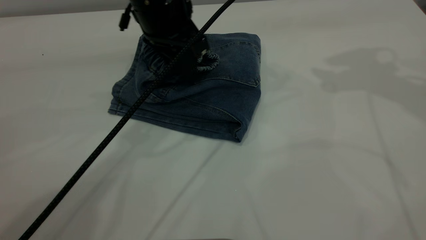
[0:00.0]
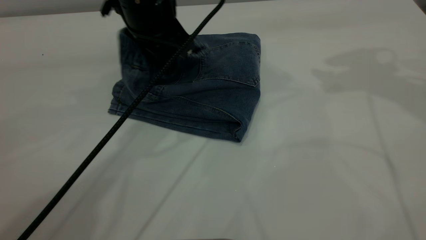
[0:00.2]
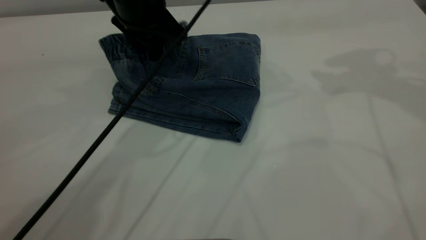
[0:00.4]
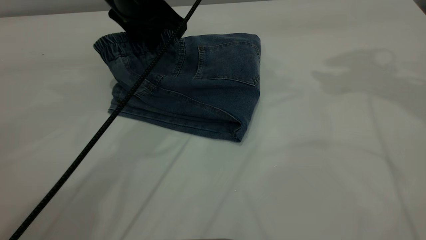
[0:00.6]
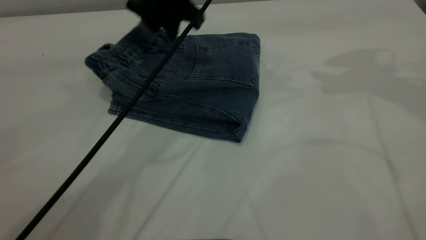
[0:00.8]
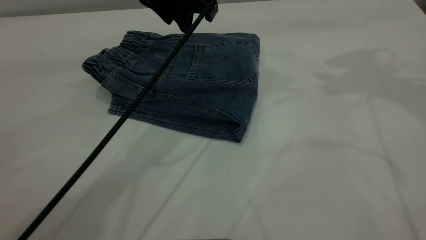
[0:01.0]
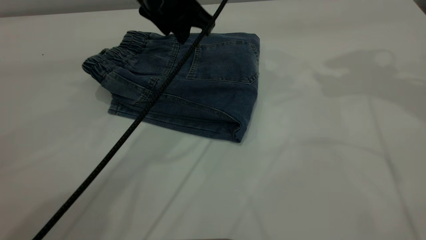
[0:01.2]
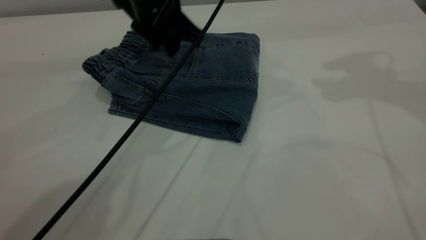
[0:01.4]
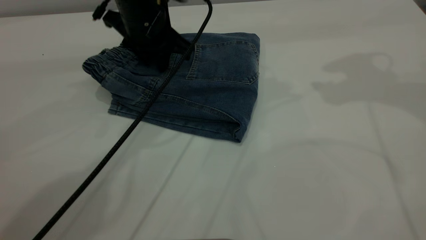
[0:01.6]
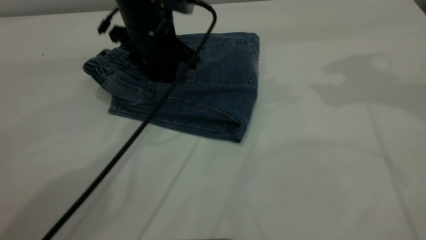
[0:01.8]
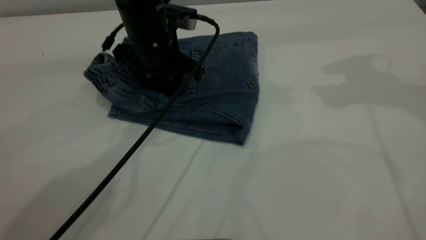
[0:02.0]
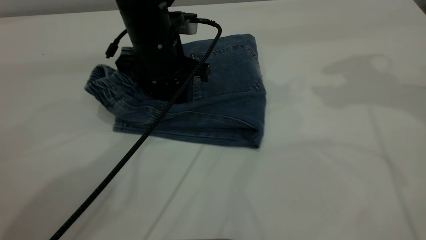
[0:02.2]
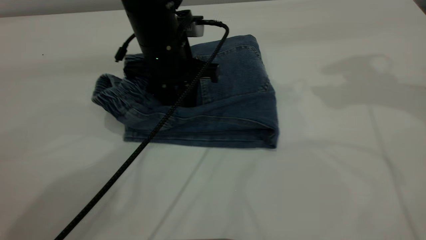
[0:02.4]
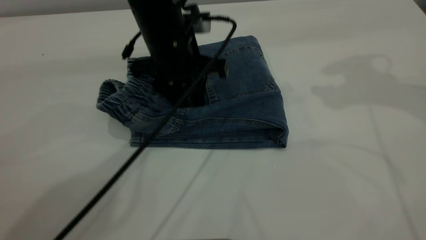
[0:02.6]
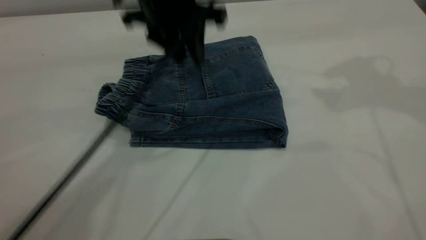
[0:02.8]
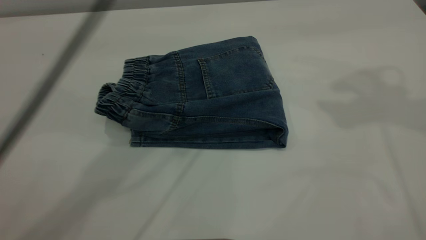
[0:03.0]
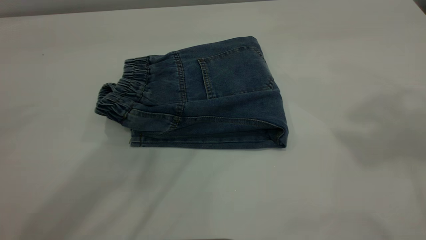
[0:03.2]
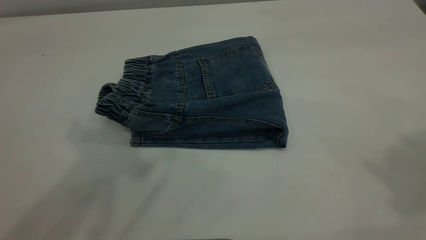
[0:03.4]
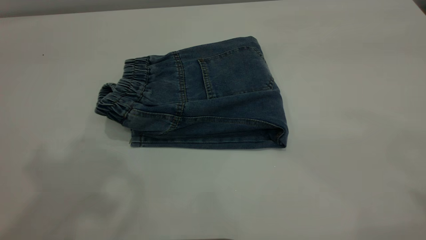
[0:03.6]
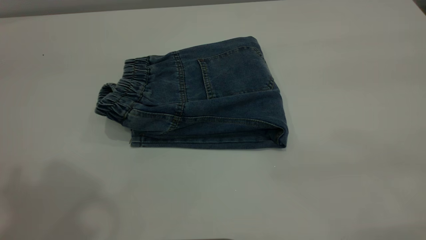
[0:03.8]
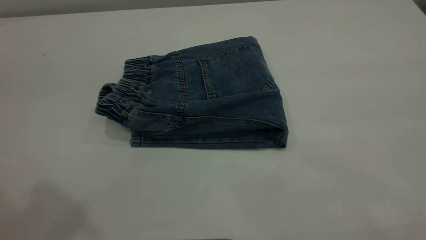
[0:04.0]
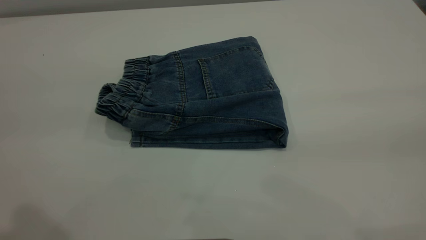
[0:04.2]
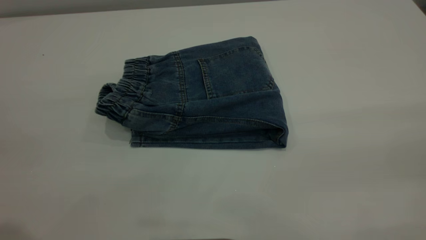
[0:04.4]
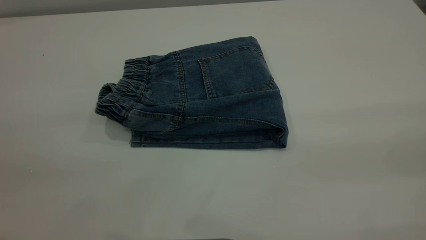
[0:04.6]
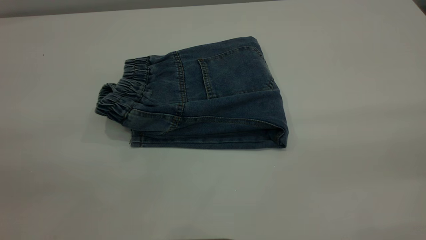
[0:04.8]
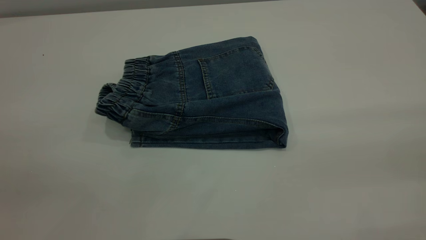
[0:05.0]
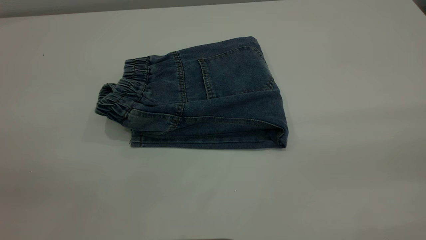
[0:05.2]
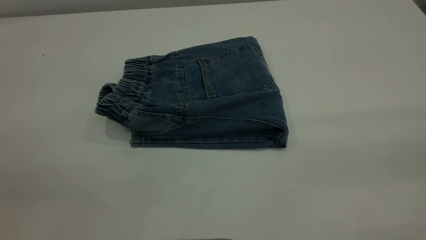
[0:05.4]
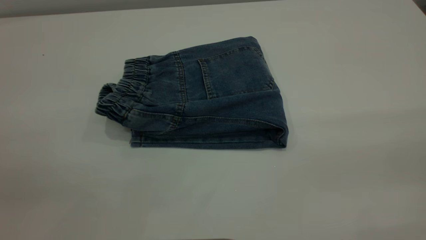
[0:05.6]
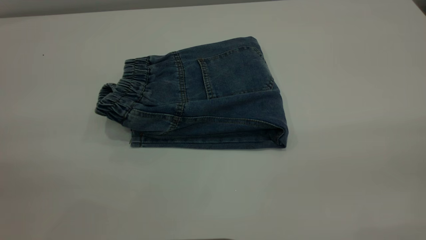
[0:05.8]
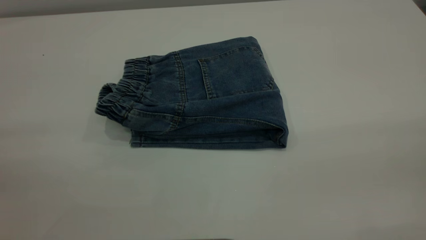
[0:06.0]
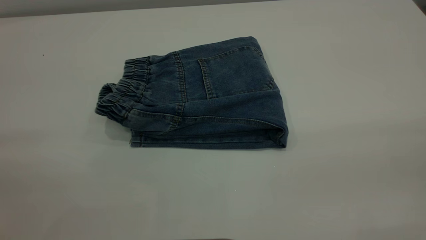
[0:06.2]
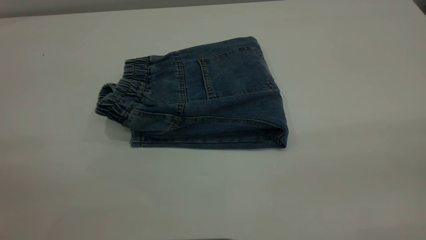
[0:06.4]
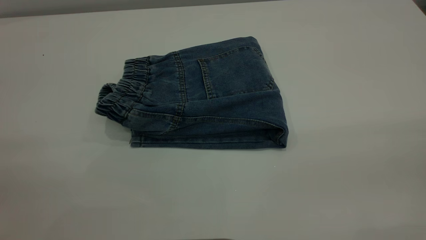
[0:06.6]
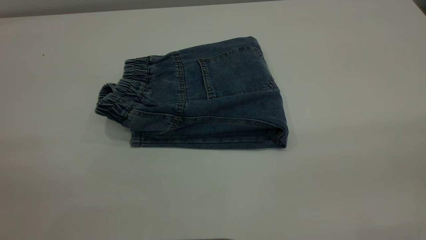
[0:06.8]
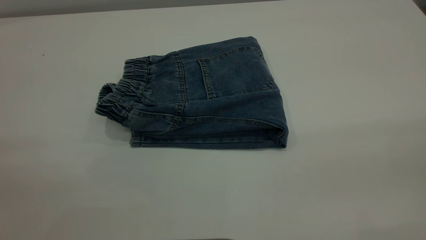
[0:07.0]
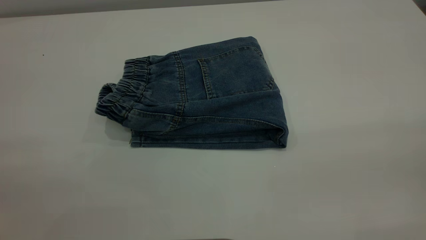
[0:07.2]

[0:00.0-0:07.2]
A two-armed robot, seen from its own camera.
0:01.4 to 0:02.8: The left gripper goes approximately 10 cm upward.
0:02.8 to 0:04.4: The left gripper moves backward and to the left, approximately 35 cm, and opens. The right gripper heads backward, covering approximately 35 cm.

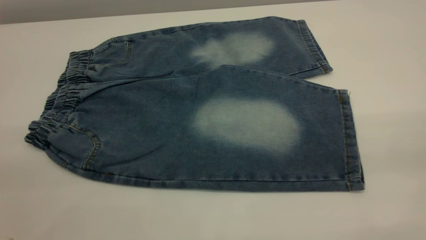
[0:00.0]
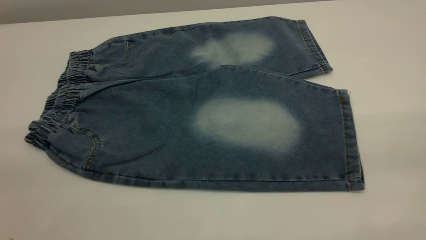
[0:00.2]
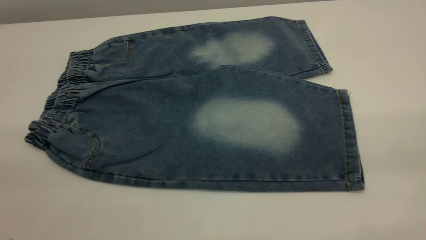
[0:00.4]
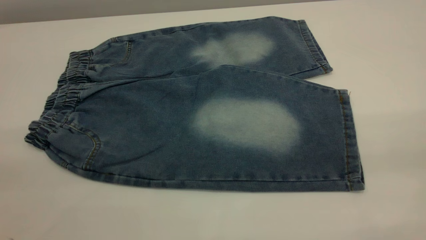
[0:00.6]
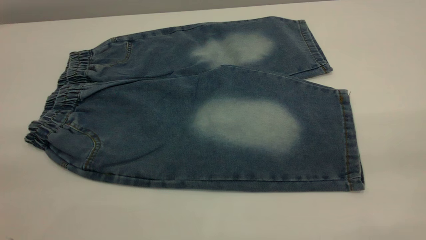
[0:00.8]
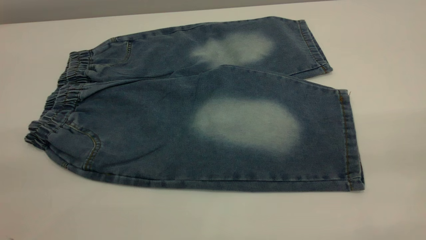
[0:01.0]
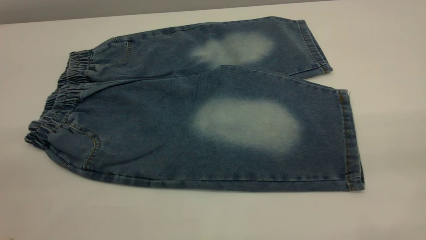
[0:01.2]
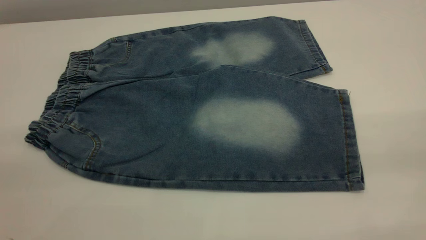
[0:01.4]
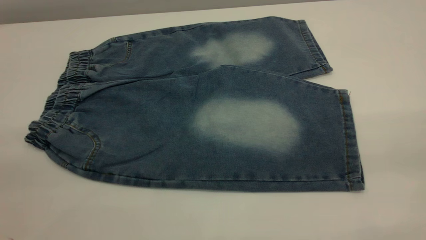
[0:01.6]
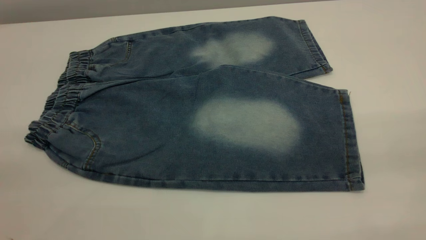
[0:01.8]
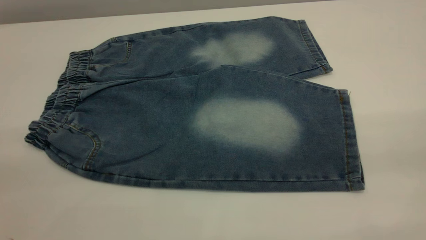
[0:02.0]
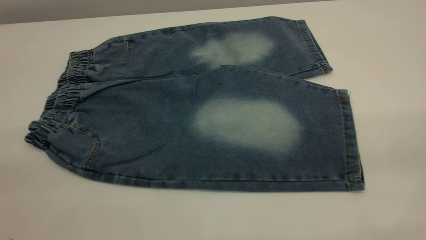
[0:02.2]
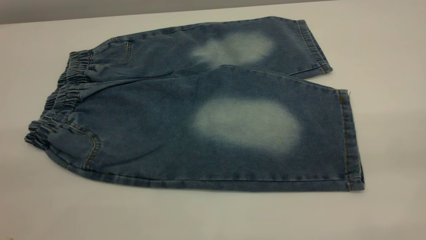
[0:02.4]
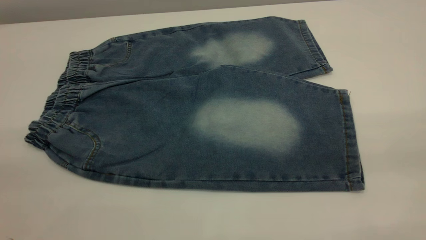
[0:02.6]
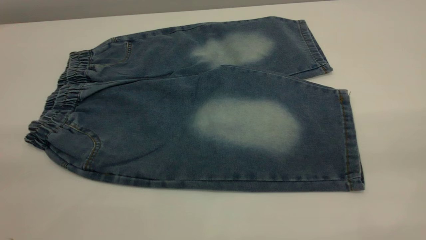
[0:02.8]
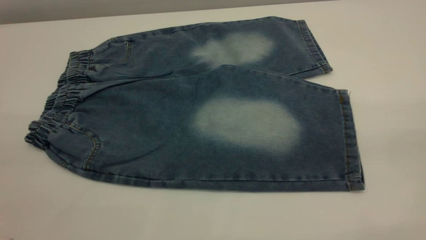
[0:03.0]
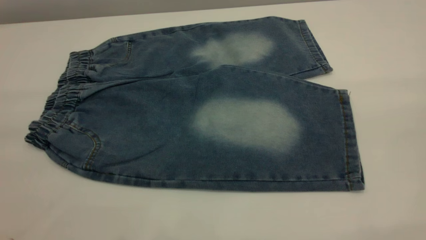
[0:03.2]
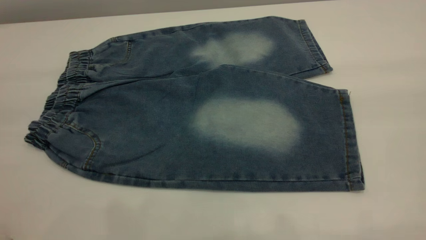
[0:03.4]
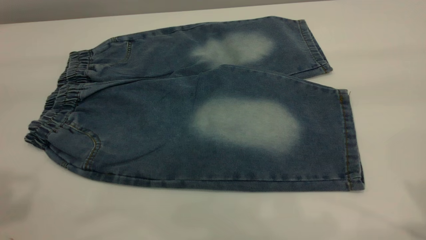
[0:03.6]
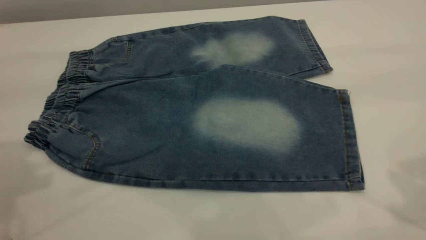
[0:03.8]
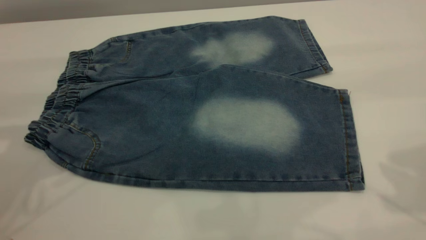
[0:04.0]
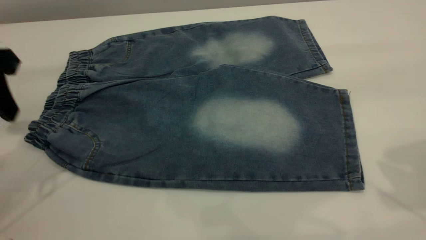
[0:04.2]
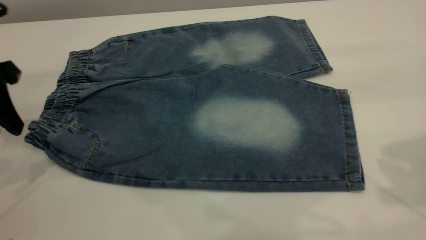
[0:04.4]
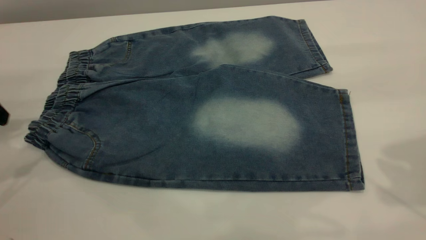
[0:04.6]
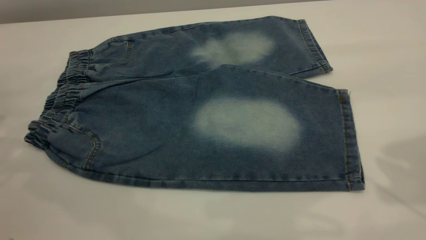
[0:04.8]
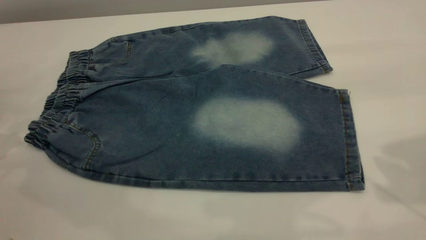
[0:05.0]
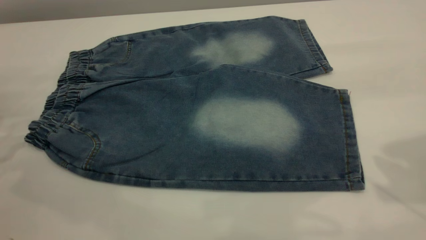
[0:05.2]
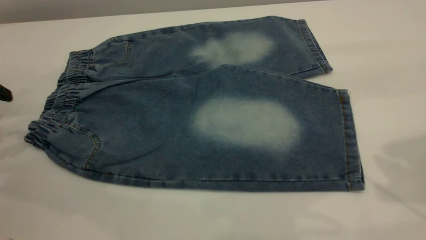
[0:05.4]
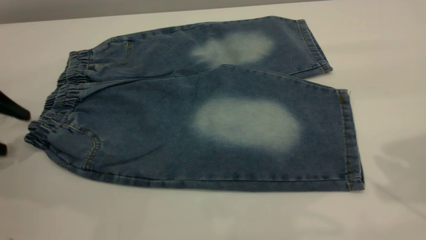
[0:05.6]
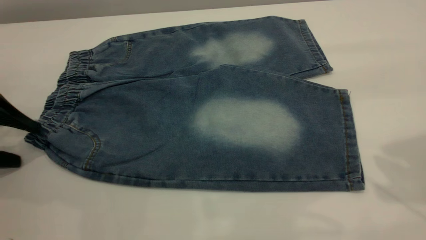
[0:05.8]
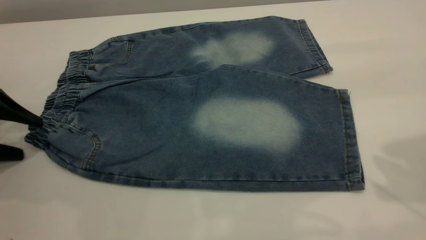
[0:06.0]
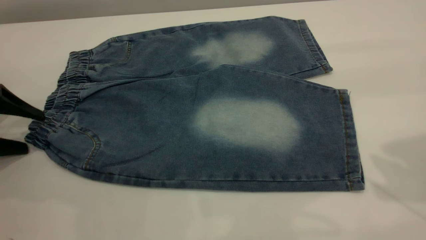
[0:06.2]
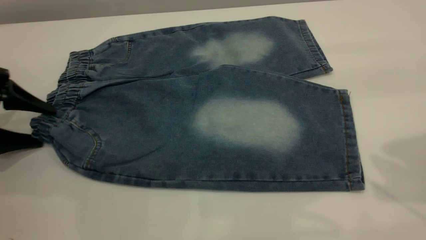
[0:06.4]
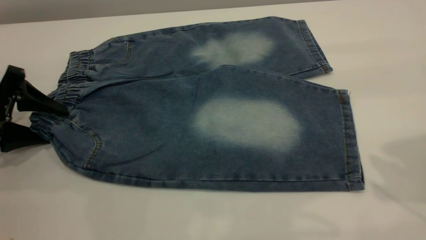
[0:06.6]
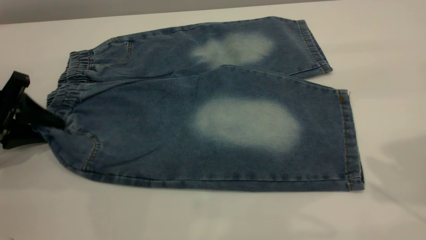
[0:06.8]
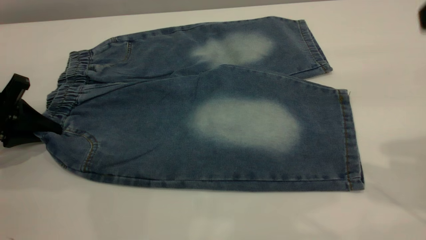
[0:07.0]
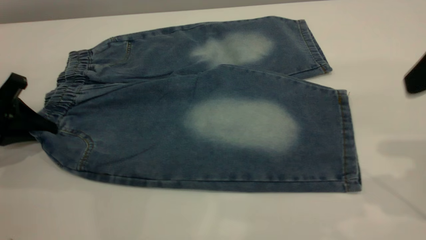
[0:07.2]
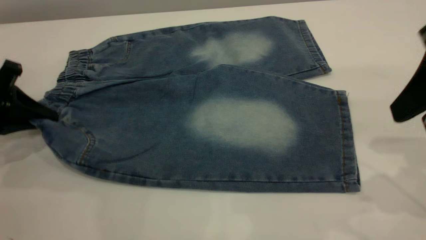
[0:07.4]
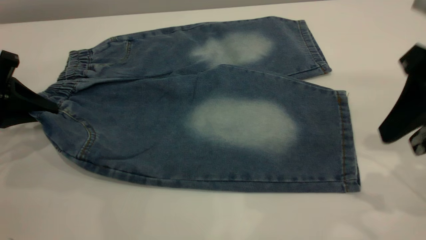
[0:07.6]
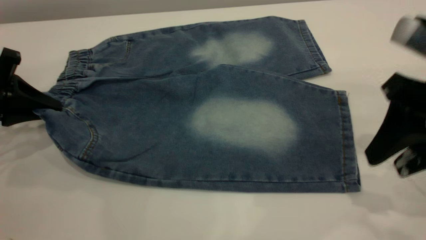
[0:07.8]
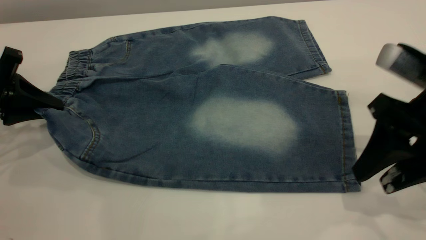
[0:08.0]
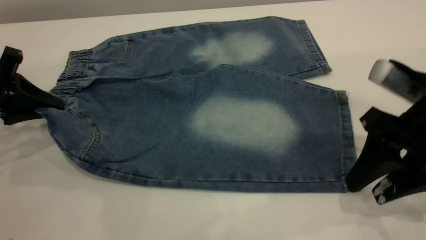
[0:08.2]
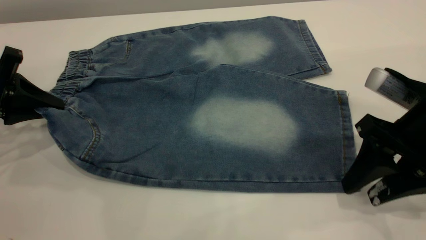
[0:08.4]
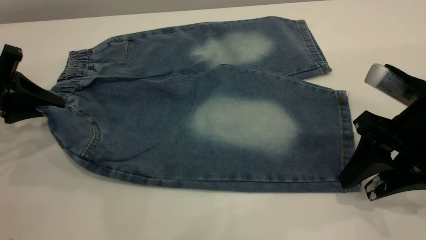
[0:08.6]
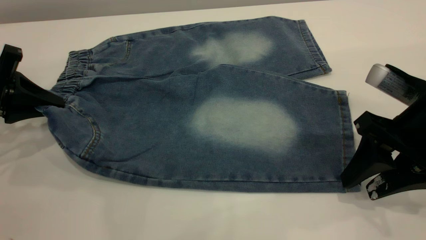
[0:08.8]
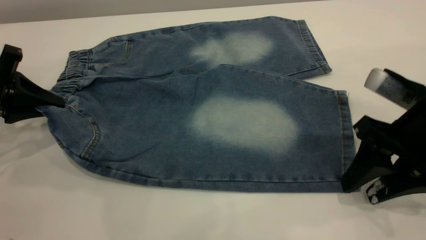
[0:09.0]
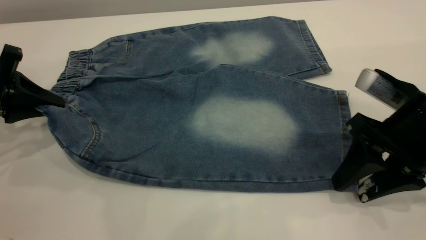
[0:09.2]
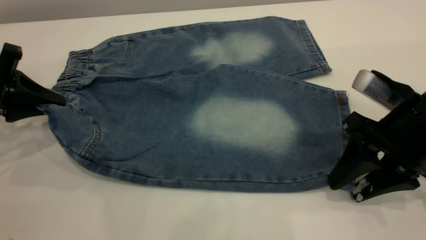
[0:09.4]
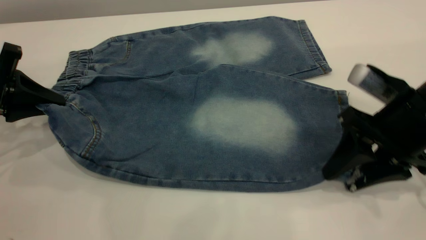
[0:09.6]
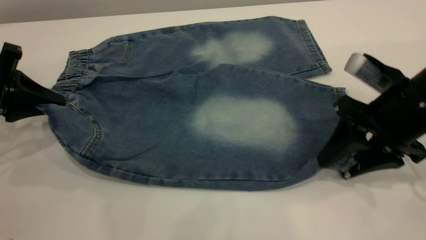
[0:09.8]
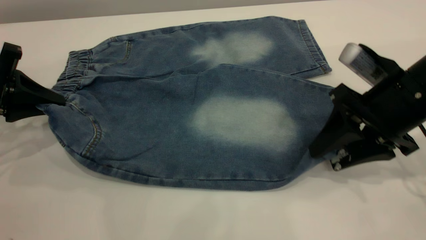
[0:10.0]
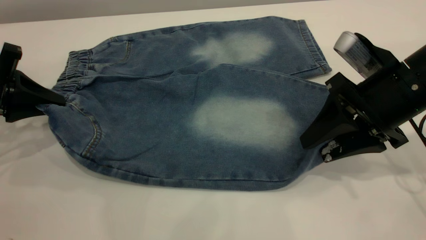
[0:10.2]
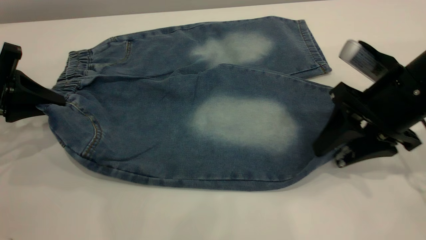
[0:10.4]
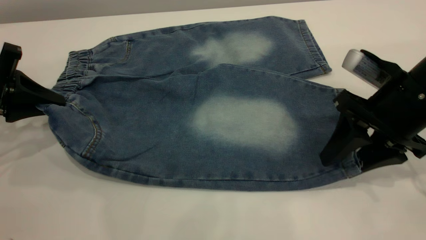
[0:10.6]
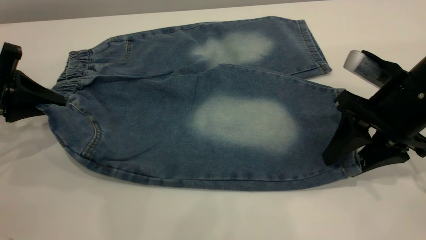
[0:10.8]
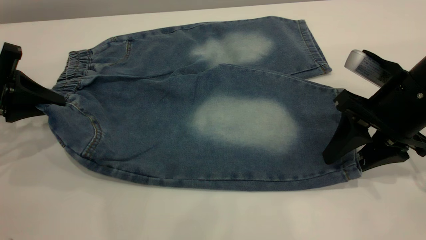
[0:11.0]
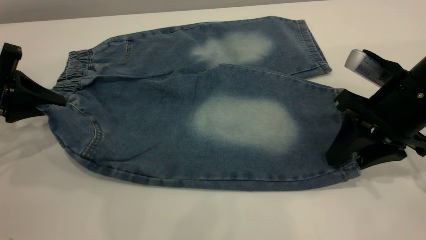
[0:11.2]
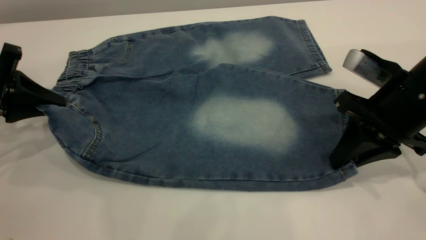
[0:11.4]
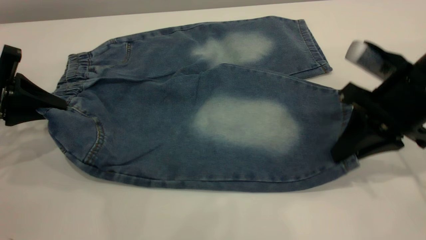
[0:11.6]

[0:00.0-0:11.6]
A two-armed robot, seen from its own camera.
0:00.0 to 0:02.8: Both grippers stay about where they are.
0:02.8 to 0:04.4: The left gripper shifts approximately 30 cm forward and downward.
0:04.4 to 0:05.8: The left gripper travels downward and to the left by roughly 10 cm, and opens.
0:05.8 to 0:07.2: The right gripper heads downward, covering some 5 cm. The left gripper closes up.
0:07.2 to 0:08.8: The right gripper travels downward by about 15 cm.
0:08.8 to 0:10.2: The right gripper ends up roughly 5 cm from where it was.
0:10.2 to 0:11.6: The right gripper closes its fingers.
